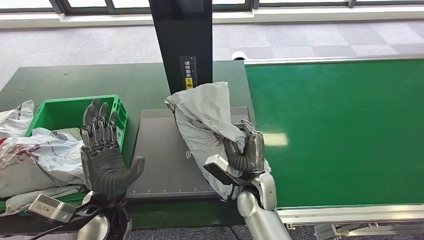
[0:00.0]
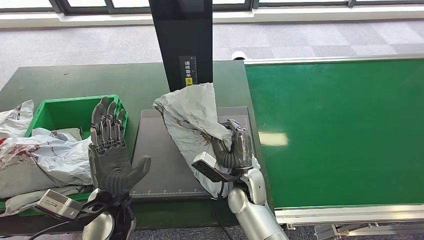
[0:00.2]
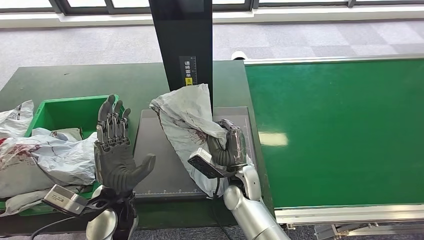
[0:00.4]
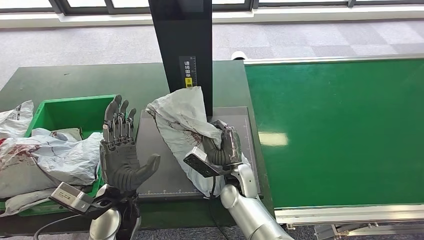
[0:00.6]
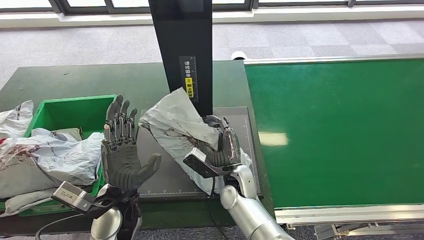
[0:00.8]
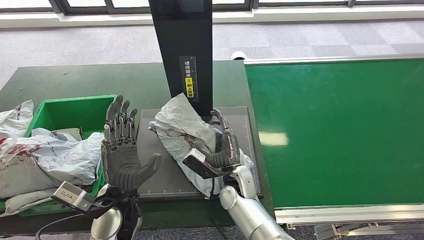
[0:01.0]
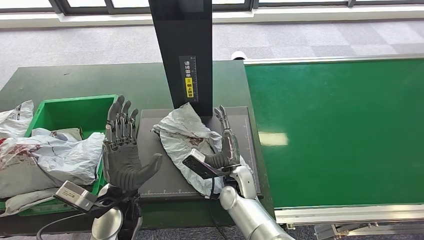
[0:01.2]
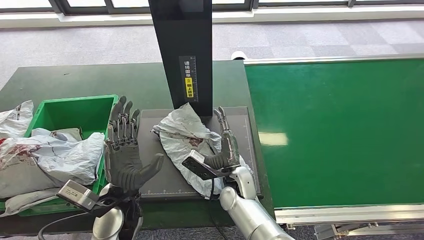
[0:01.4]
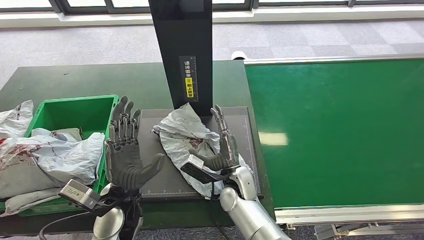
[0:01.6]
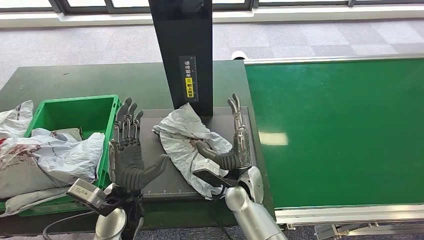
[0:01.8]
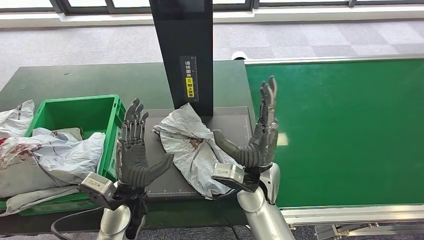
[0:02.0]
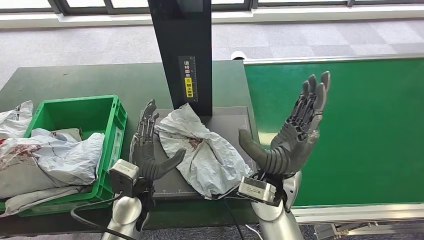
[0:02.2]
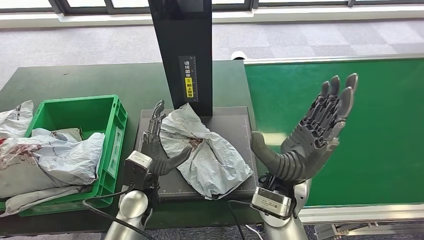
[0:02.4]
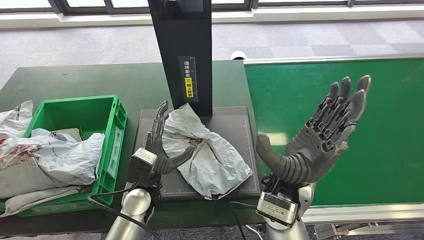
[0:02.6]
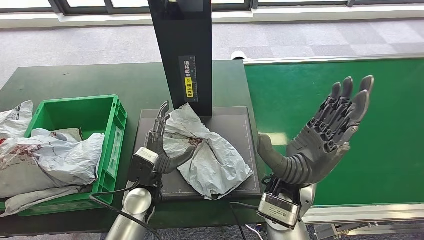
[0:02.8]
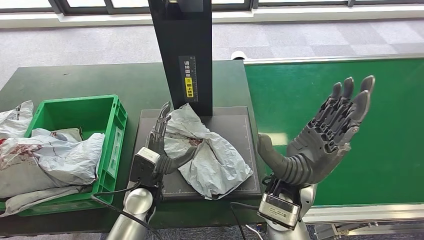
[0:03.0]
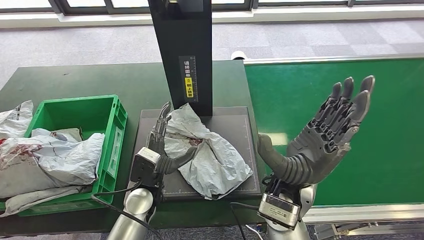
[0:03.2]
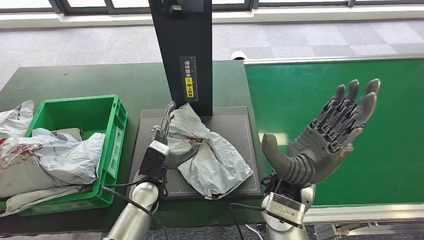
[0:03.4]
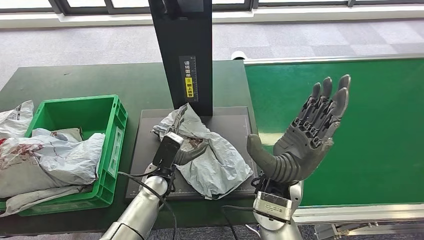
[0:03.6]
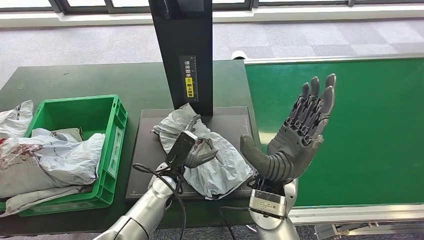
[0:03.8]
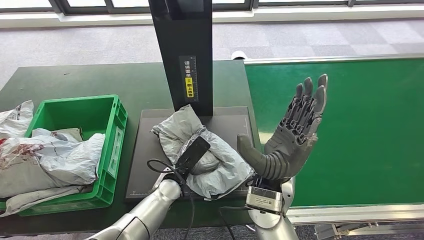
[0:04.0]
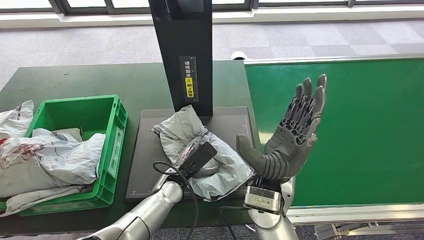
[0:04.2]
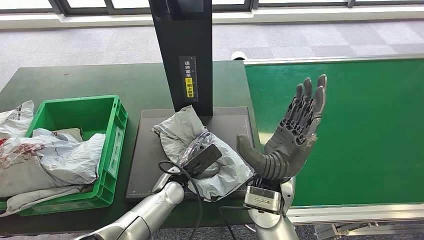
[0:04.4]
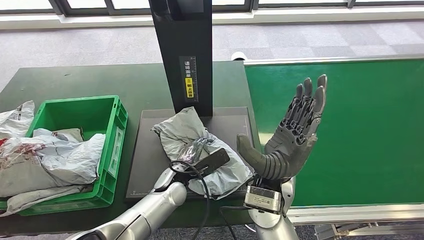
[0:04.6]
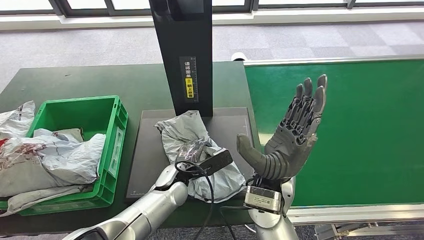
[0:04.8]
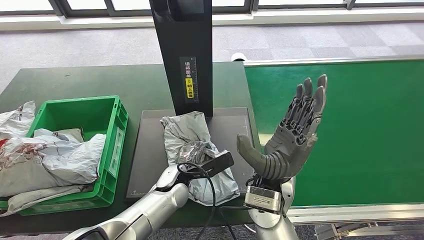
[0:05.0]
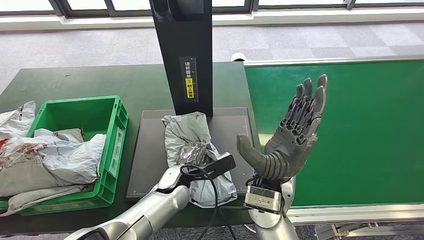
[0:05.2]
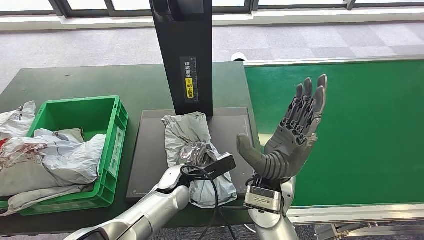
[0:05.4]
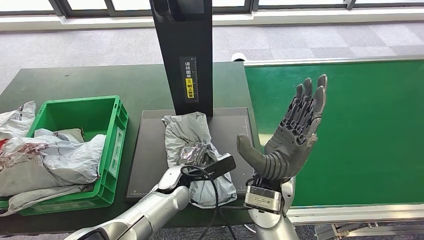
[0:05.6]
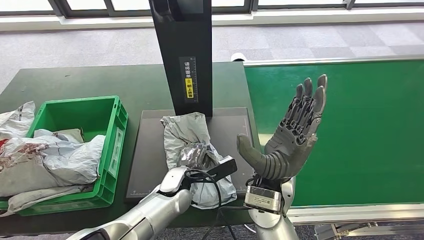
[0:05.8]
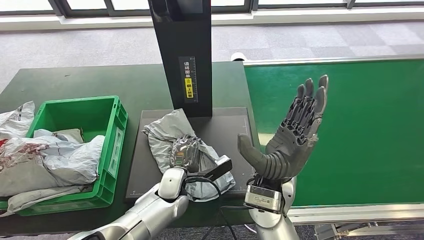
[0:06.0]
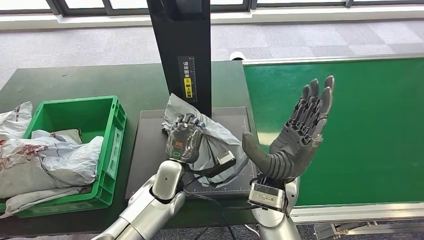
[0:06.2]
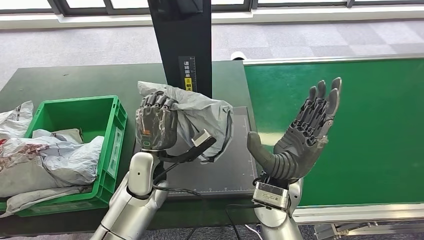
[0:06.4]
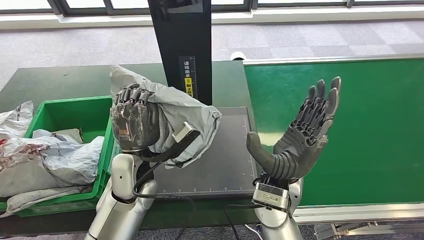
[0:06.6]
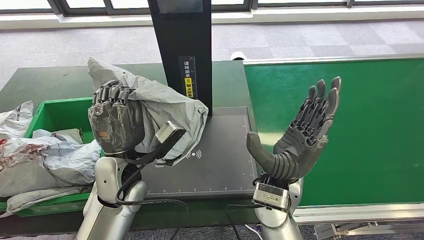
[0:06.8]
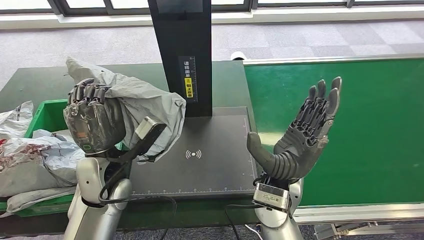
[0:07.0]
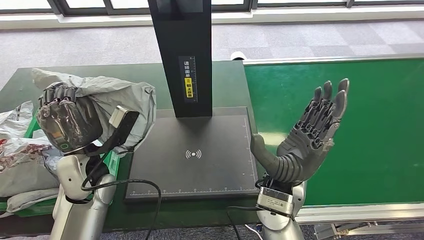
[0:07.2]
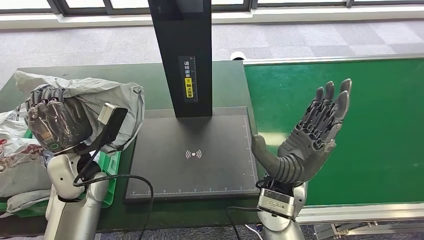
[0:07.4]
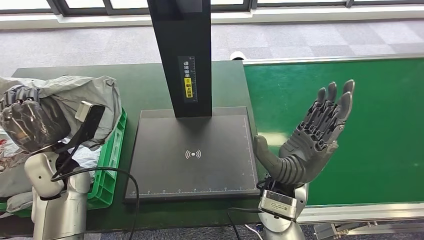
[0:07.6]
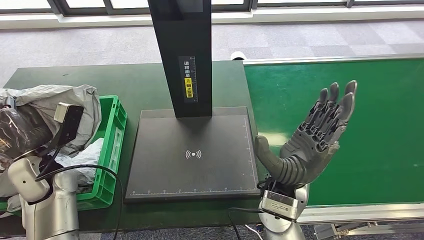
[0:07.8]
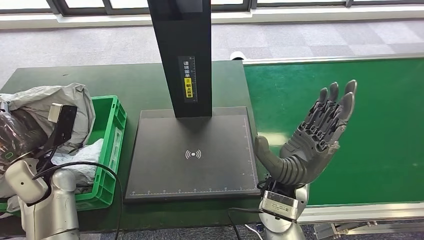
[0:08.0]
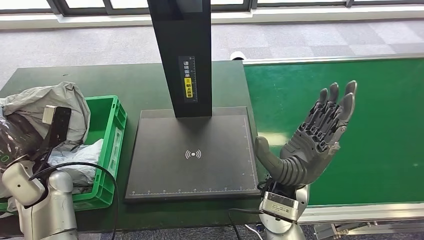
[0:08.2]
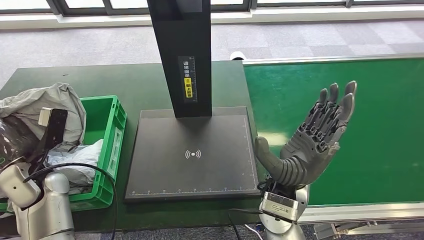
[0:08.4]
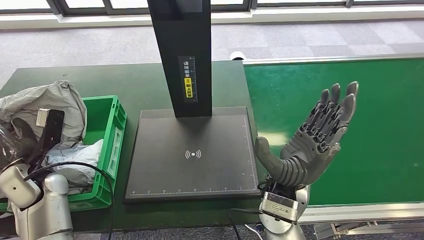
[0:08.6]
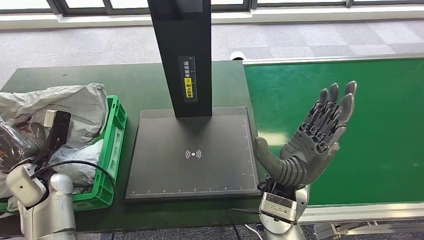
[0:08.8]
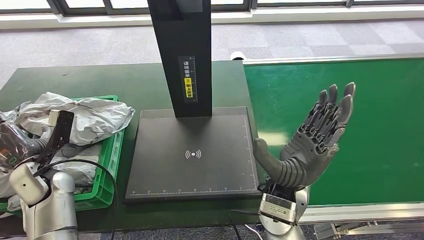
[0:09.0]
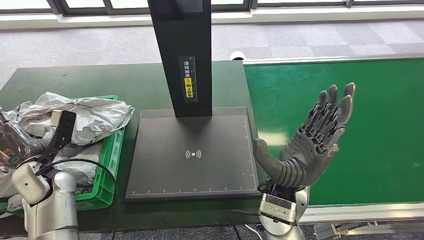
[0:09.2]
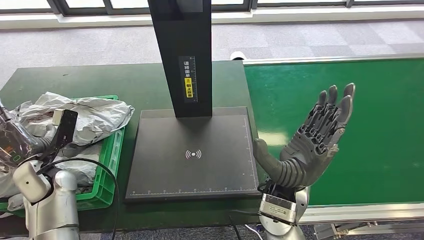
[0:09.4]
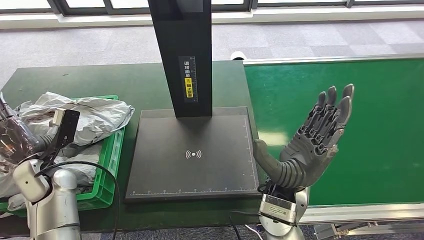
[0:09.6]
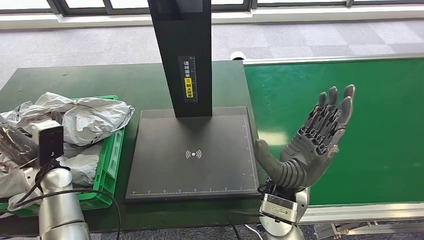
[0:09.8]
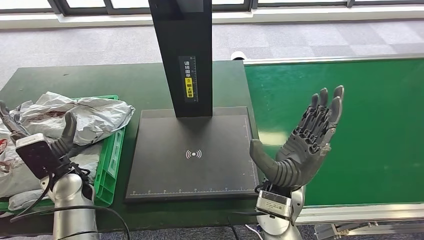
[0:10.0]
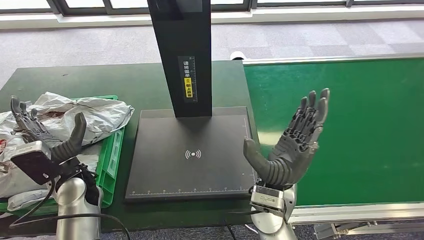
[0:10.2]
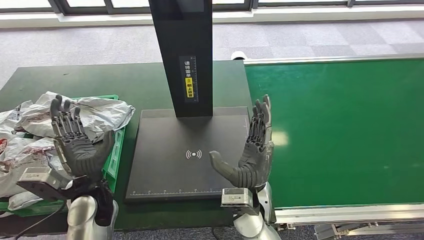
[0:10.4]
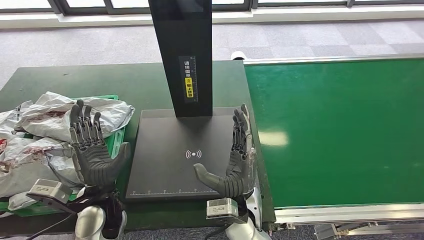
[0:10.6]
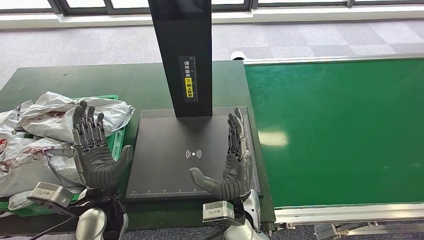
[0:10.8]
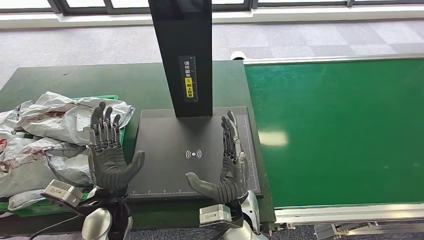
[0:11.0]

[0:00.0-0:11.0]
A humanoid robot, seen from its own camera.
Step, 0:00.2 to 0:02.6: Place the parcel onto the inbound machine.
Step, 0:06.0 to 0:07.4: Pick up the parcel from the inbound machine.
Step, 0:07.6 to 0:11.0: Place the parcel into the delivery box.
0:00.0 to 0:01.6: The right hand goes some 5 cm to the left.
0:01.6 to 0:03.2: The right hand heads upward and to the right, covering roughly 20 cm. The left hand moves some 5 cm.
0:07.8 to 0:09.4: The hands stay close to where they were, moving slightly.
0:09.4 to 0:11.0: The left hand travels to the right and backward by approximately 20 cm. The right hand moves to the left and downward, roughly 10 cm.

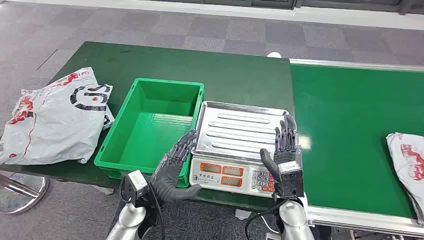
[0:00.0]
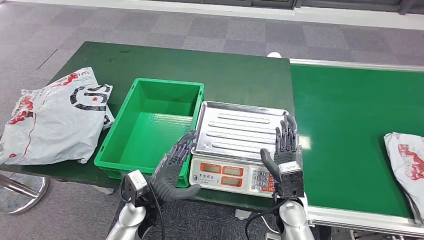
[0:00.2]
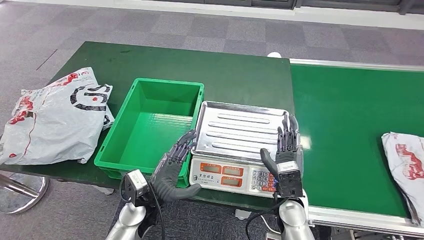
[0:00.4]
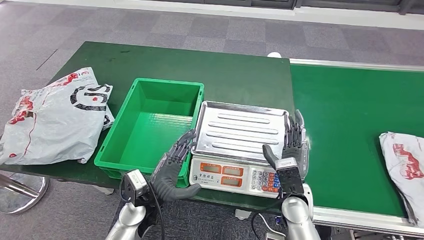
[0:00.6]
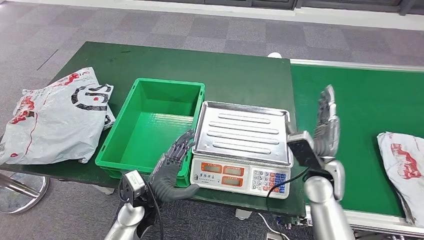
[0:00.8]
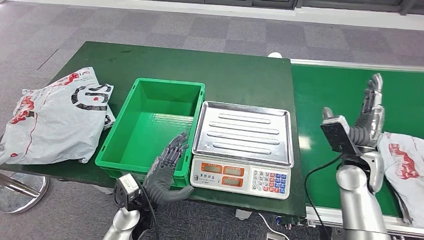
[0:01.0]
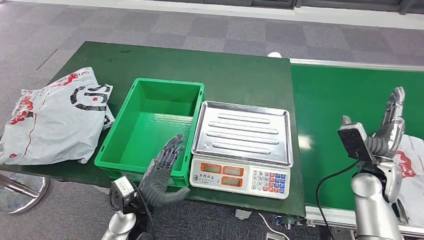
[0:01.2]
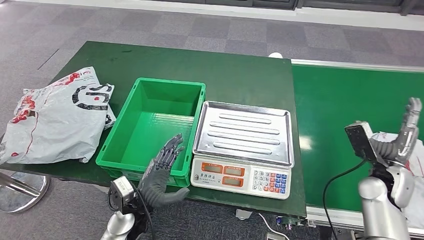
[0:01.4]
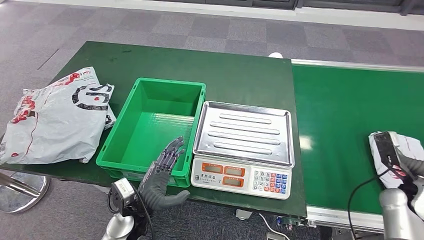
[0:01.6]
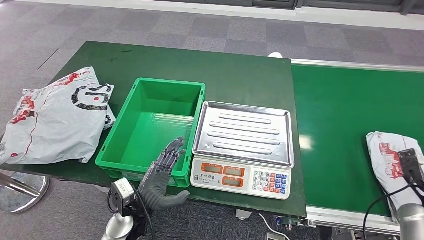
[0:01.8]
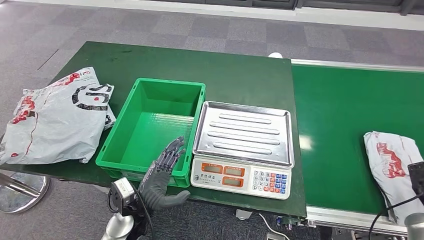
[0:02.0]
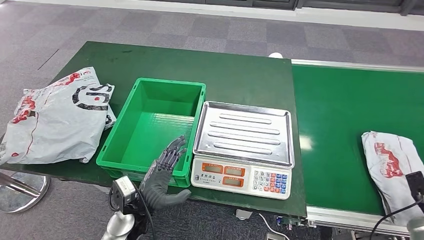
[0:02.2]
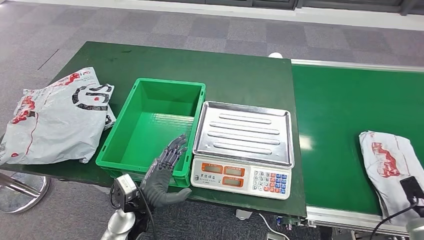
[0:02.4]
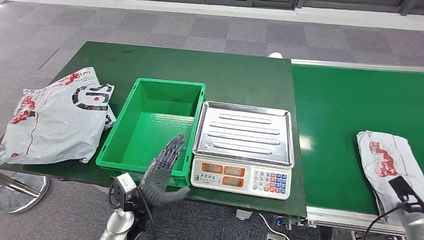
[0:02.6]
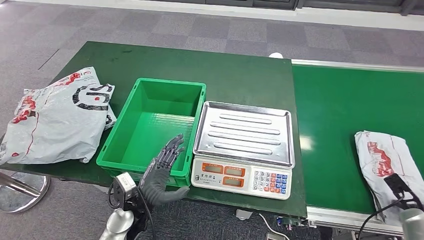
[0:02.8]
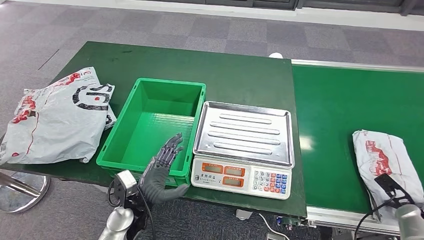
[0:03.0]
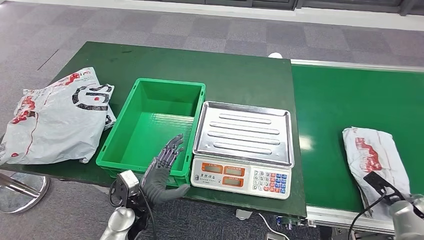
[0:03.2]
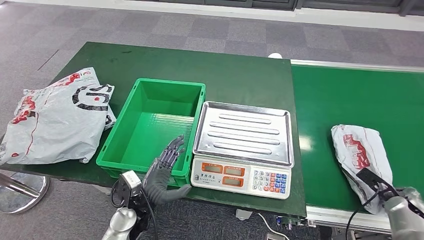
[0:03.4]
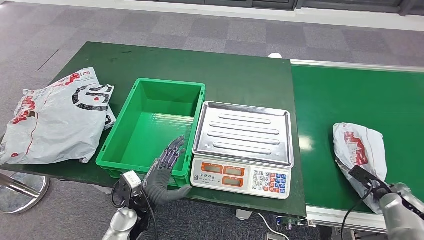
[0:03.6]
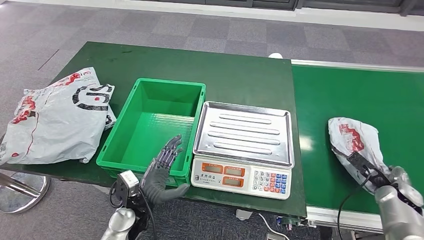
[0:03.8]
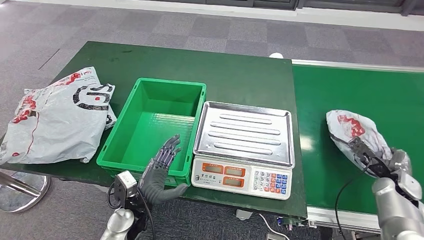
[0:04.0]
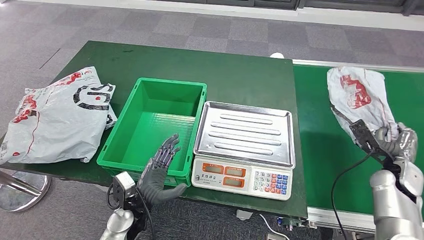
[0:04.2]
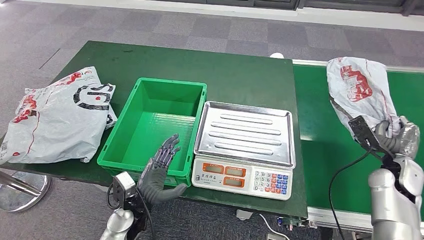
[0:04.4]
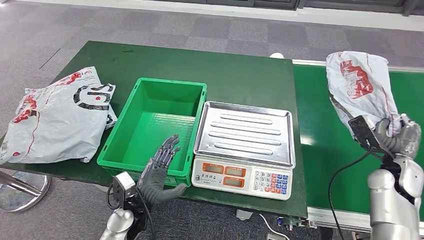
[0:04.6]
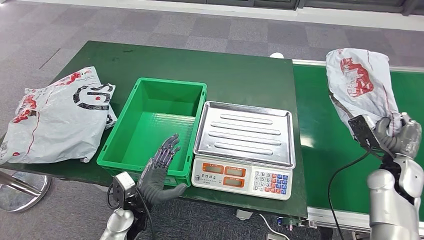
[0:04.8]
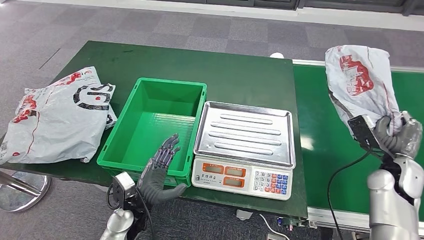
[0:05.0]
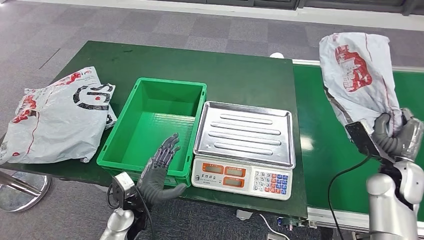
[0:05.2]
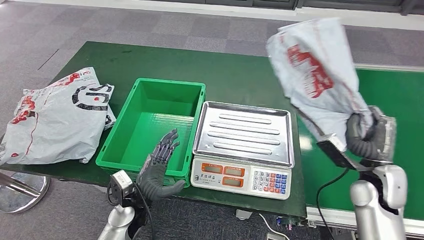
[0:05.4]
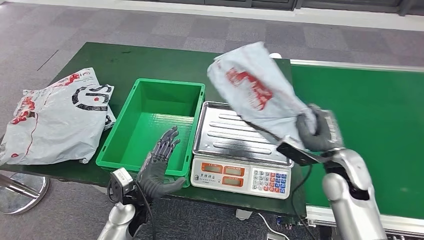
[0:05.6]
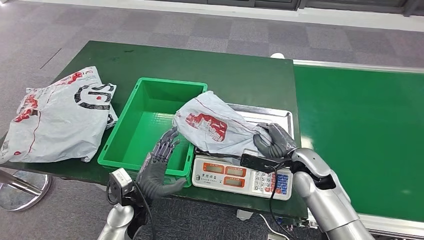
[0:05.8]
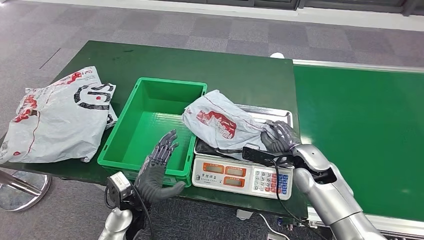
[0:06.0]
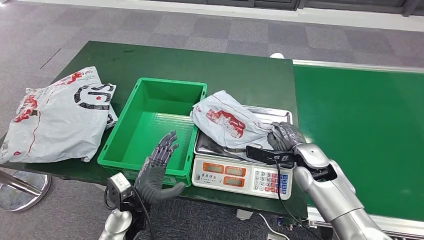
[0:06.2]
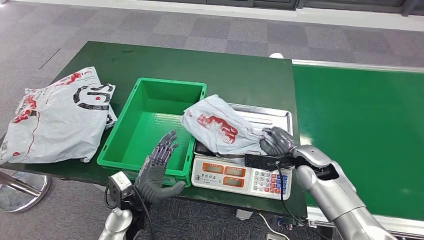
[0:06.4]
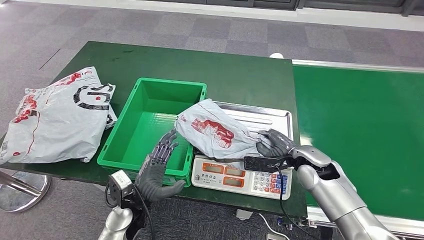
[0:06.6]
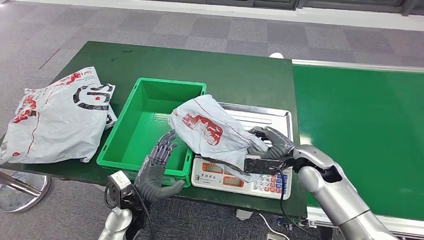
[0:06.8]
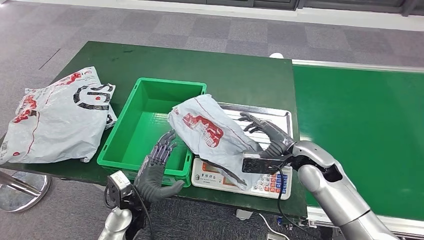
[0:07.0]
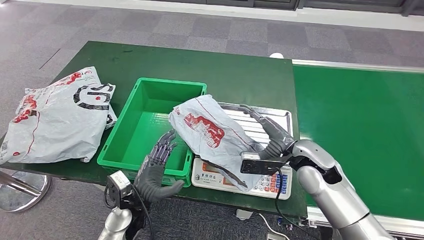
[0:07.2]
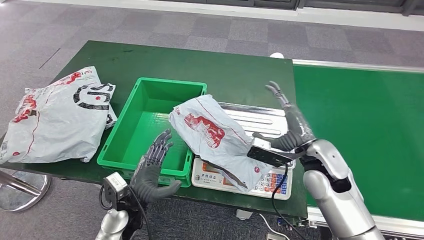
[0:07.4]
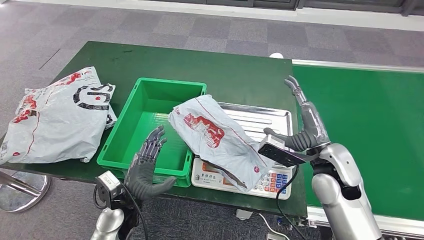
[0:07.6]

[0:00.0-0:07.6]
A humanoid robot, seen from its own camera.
Step, 0:00.0 to 0:05.4: Take the parcel off the conveyor belt.
0:01.6 to 0:03.0: The right hand moves downward and to the right, roughly 10 cm.
0:03.0 to 0:04.6: The right hand travels to the left, upward and forward by some 15 cm.
0:06.0 to 0:07.6: The right hand shifts roughly 5 cm upward.
